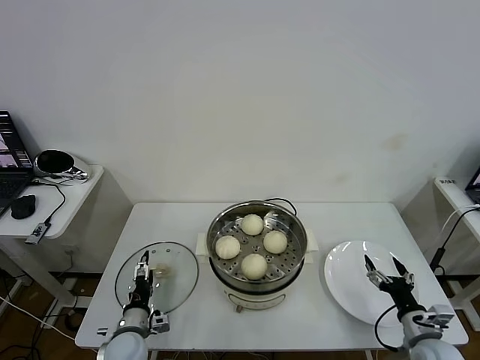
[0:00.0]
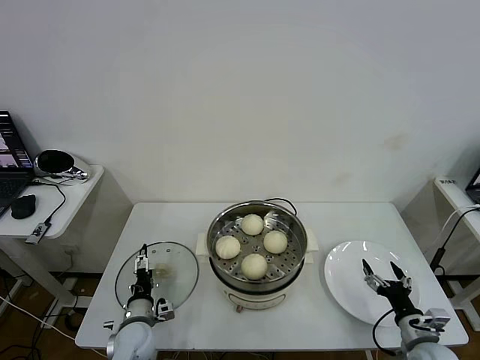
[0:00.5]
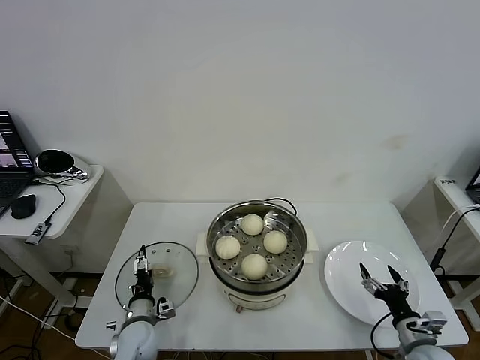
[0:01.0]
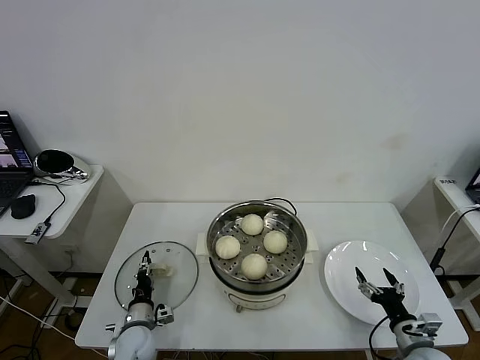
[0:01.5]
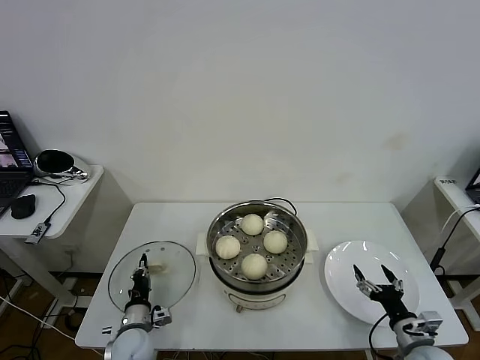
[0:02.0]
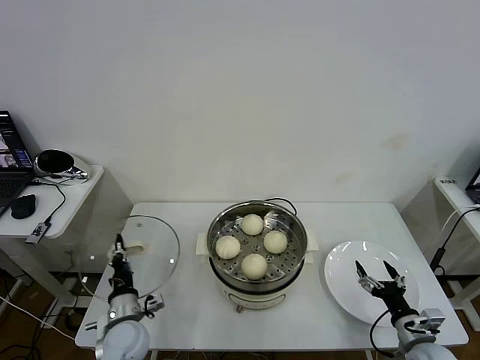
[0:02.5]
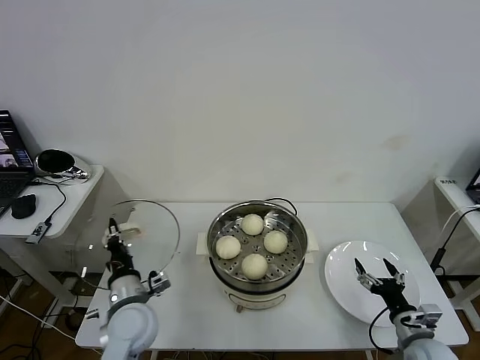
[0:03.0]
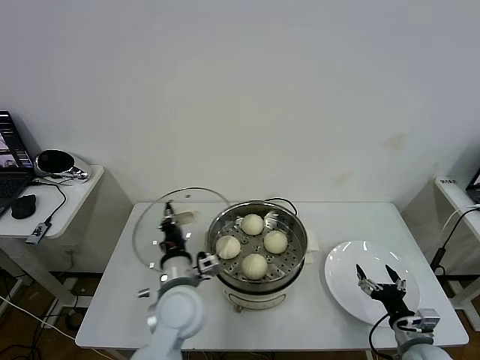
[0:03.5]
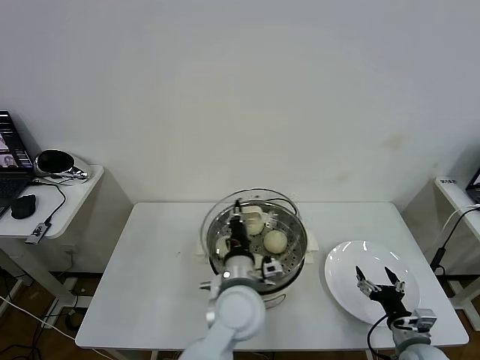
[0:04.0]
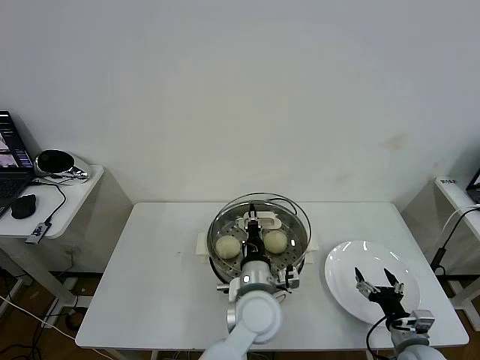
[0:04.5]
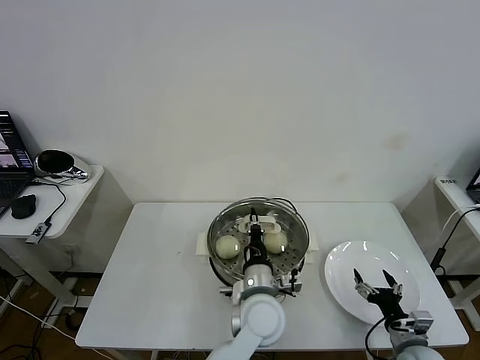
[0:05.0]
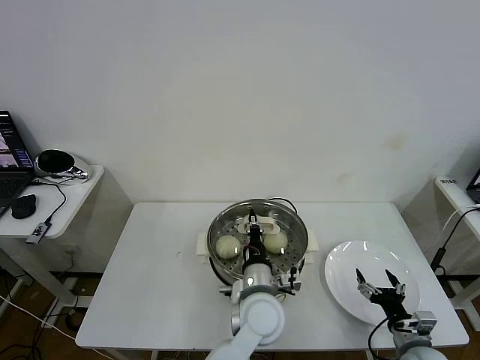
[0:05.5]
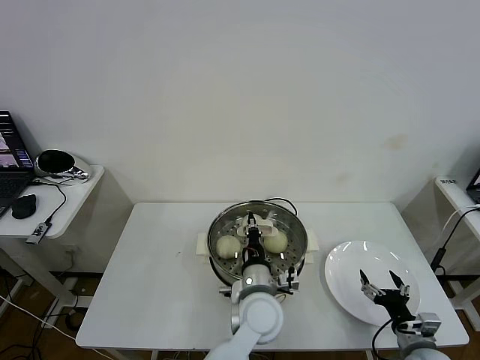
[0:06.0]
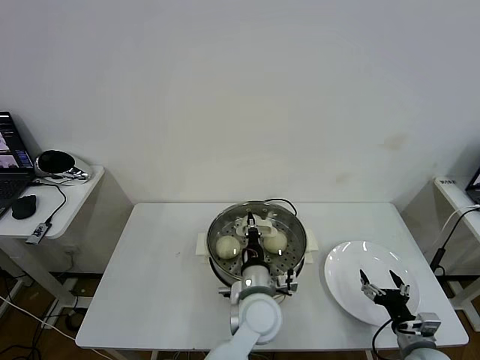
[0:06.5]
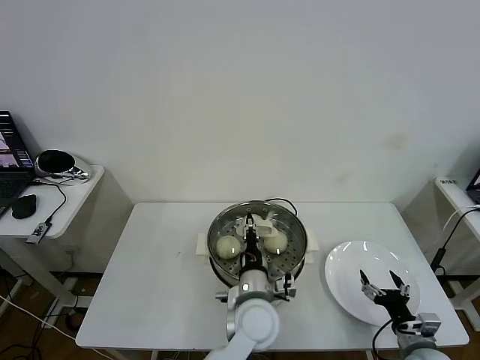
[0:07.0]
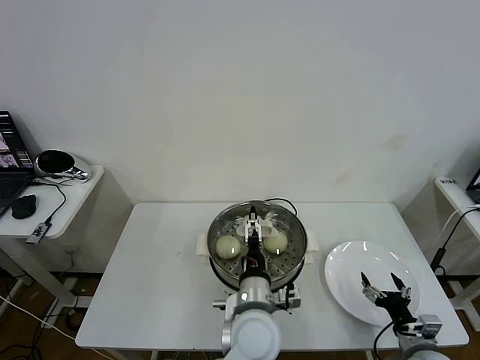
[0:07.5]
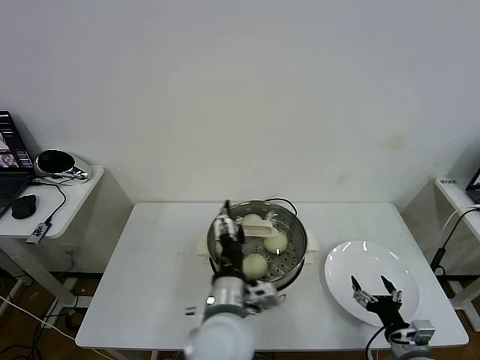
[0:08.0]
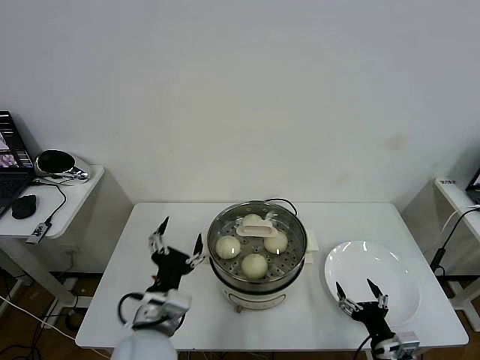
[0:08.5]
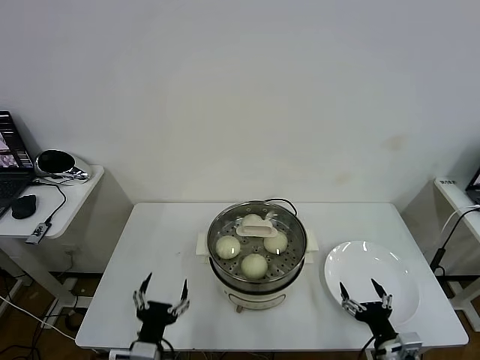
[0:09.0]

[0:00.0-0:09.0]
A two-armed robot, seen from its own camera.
Task of the whole recording: take steamed baozi put them in steamer then cover it.
Step, 0:02.5 to 0:07.0: Place the pot lid on the steamer with left gripper.
0:00.0 to 0:02.0: The left gripper closes its fingers.
0:02.0 to 0:04.5: The left gripper goes roughly 35 cm to the right and upward.
0:04.5 to 0:07.0: The grippers stay close to where they were, moving slightly.
0:07.0 to 0:09.0: The left gripper moves to the left and backward, some 25 cm, and opens up. The right gripper goes some 5 cm to the left.

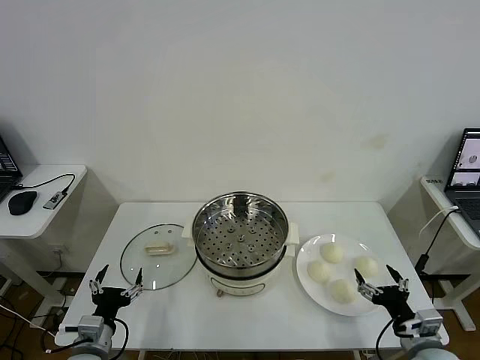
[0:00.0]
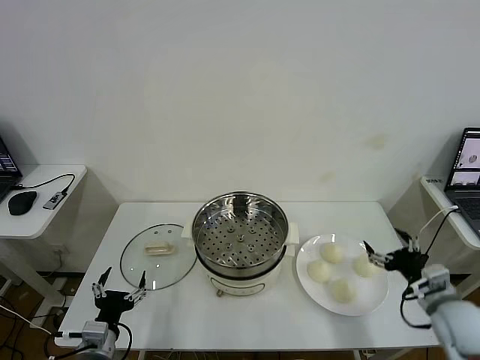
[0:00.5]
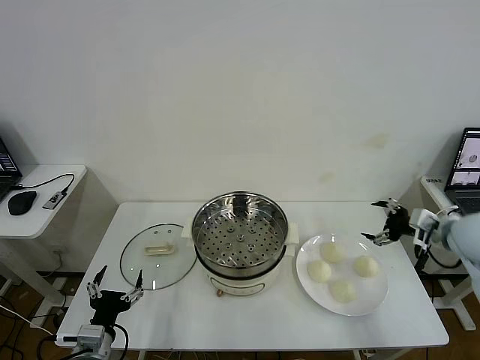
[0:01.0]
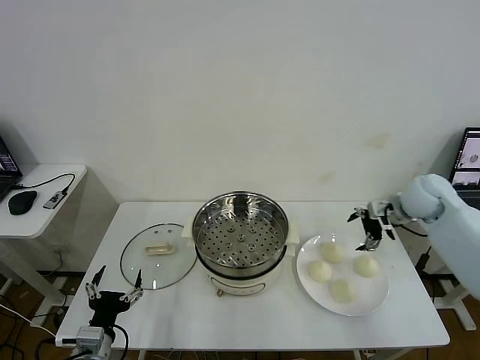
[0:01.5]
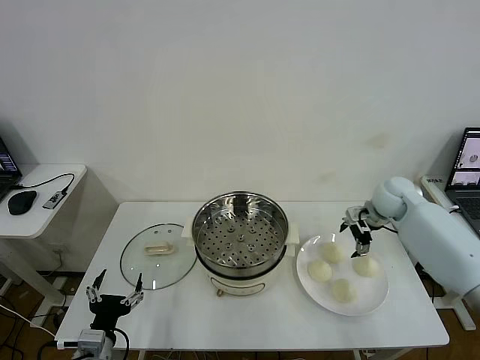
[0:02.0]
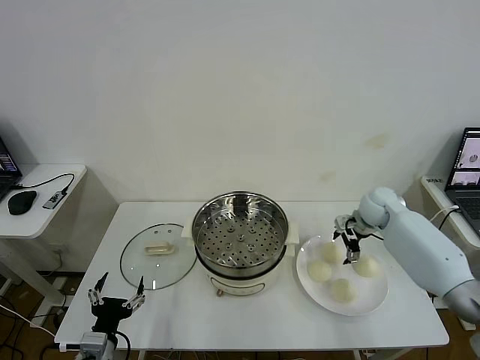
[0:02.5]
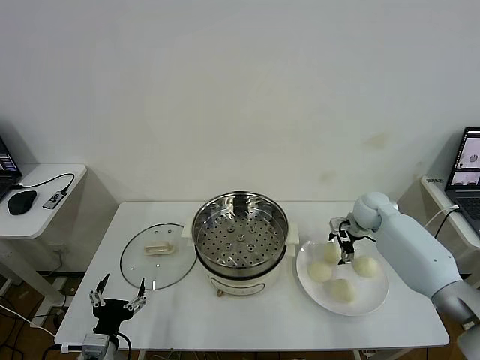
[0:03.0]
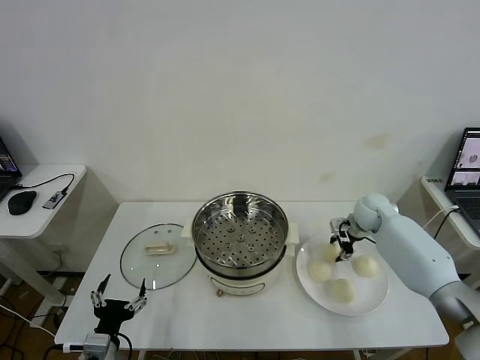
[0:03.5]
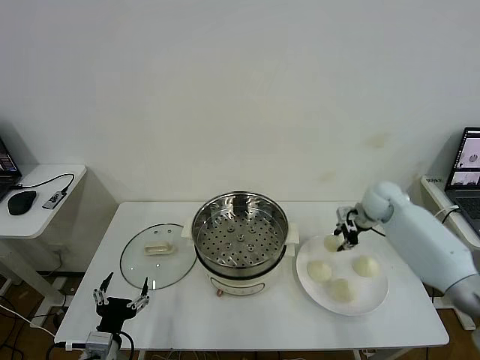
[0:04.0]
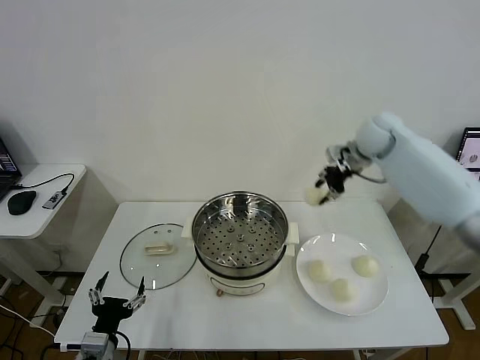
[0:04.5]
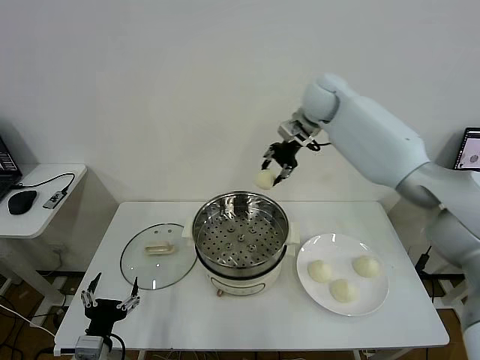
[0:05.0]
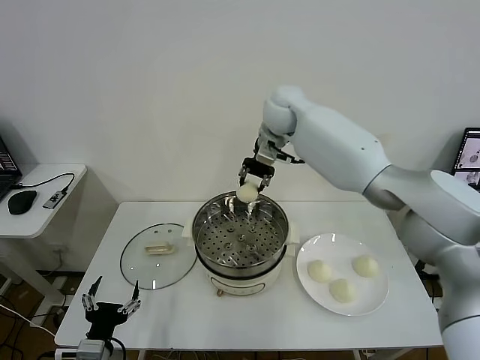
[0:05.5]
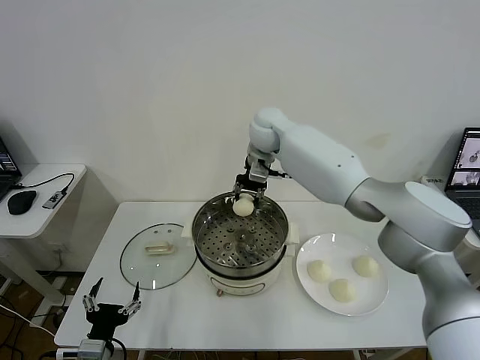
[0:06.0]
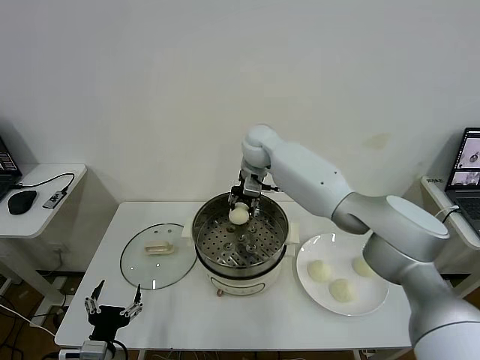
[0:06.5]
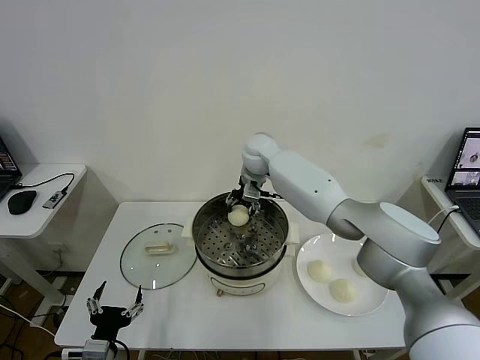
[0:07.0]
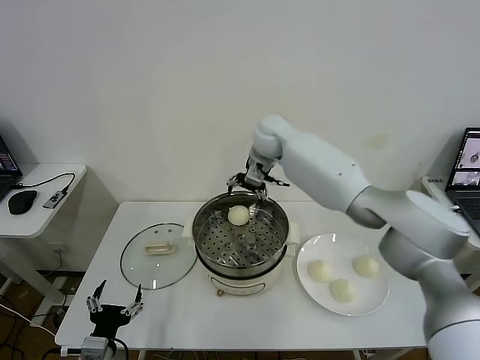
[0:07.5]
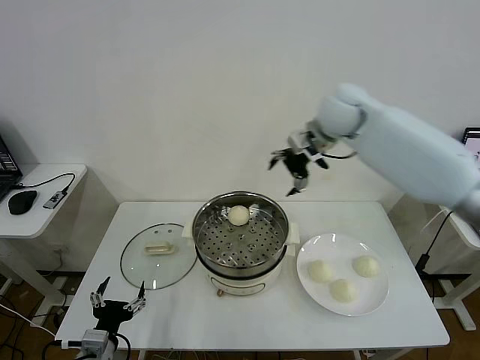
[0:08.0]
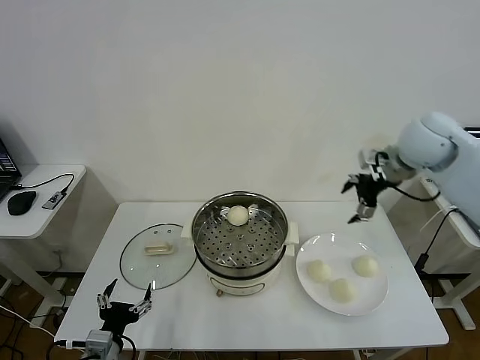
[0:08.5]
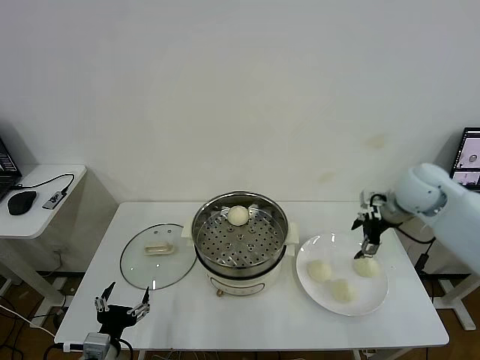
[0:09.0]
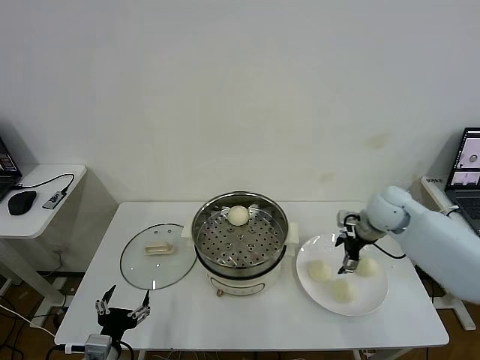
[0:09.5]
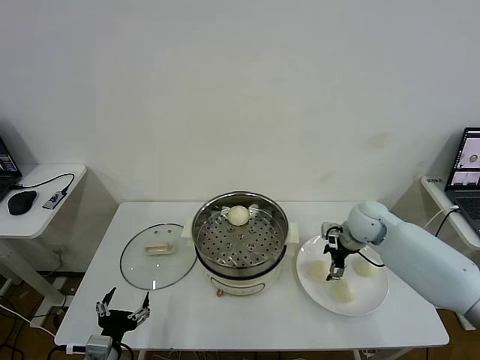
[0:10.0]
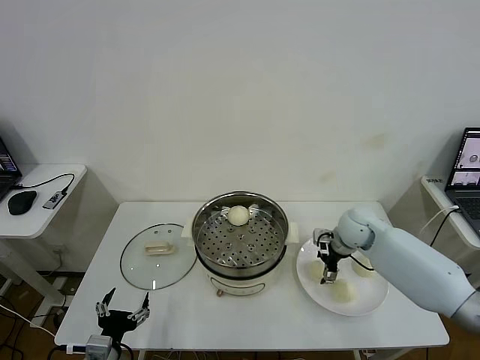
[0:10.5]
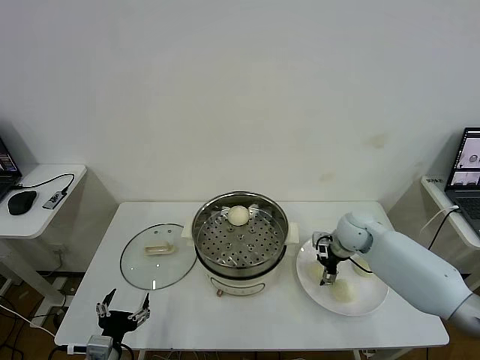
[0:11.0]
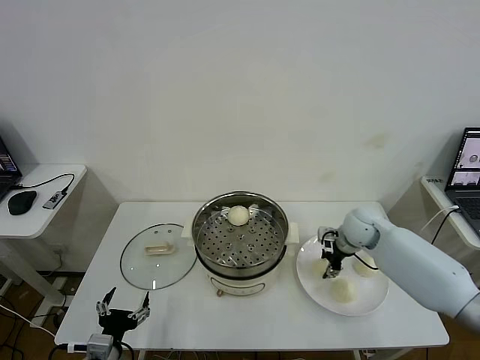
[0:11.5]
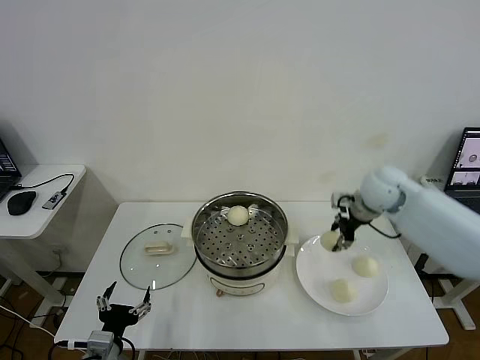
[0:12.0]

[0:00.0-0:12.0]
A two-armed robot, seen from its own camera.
Task of the whole recording: take steamed baozi put them in steamer then cover it.
Step, 0:00.0 to 0:03.5: Grasp the baozi in the plate with right gripper.
Step, 0:04.0 to 0:07.0: Place the baozi on the steamer with right gripper.
Step, 0:07.5 to 0:11.0: Grasp the baozi in the plate with right gripper.
0:02.0 to 0:04.0: The right gripper closes.
0:04.0 to 0:06.0: The right gripper travels to the left by some 30 cm.
0:06.0 to 0:08.0: The right gripper goes about 20 cm to the right and upward, and opens up.
0:08.0 to 0:10.0: The right gripper moves downward, about 25 cm.
0:10.0 to 0:12.0: The right gripper moves upward, roughly 15 cm, and closes up.

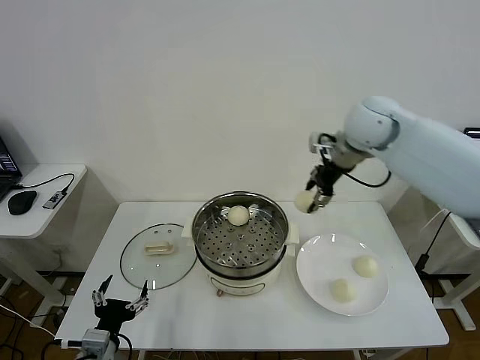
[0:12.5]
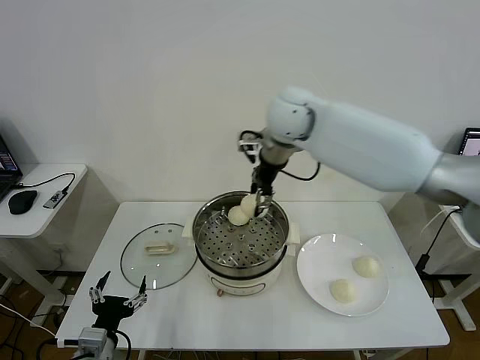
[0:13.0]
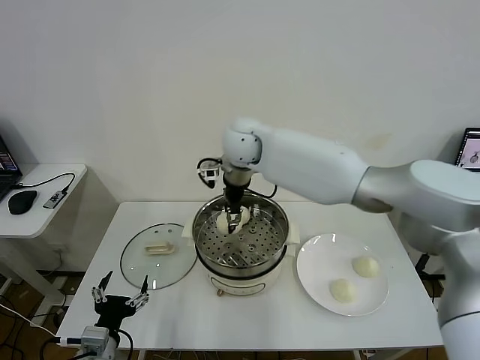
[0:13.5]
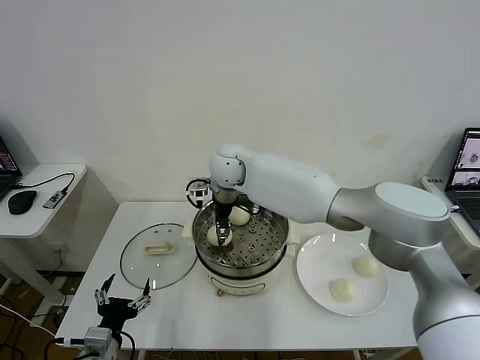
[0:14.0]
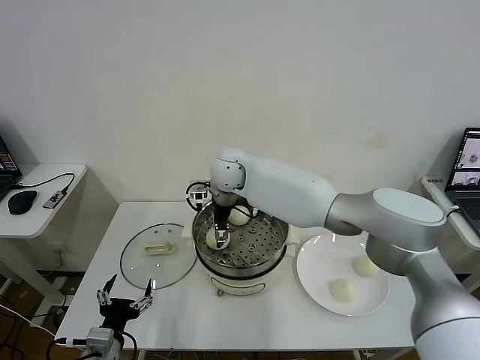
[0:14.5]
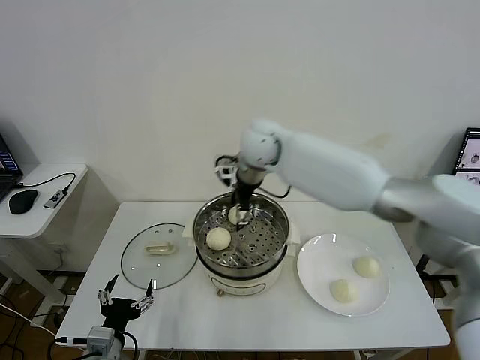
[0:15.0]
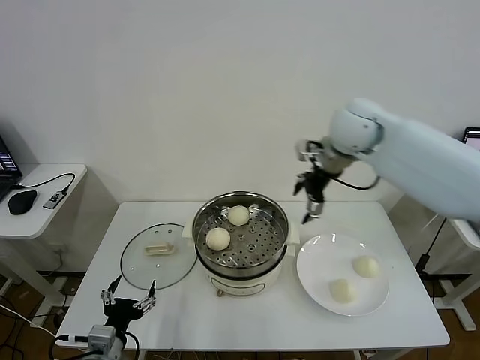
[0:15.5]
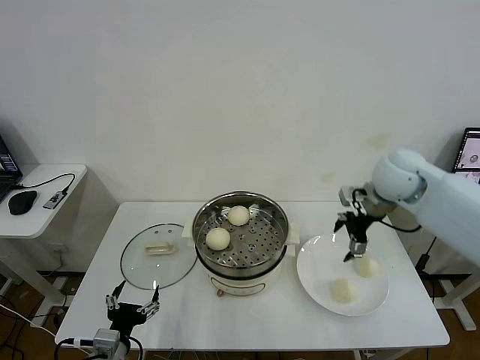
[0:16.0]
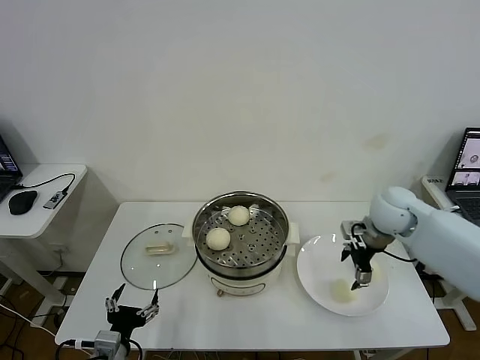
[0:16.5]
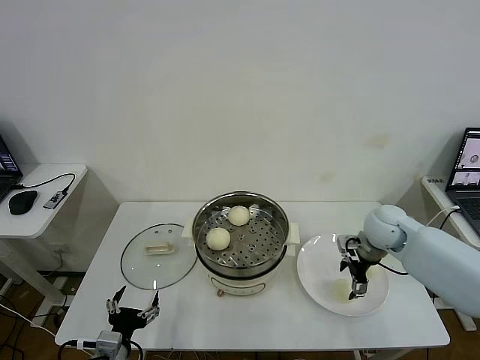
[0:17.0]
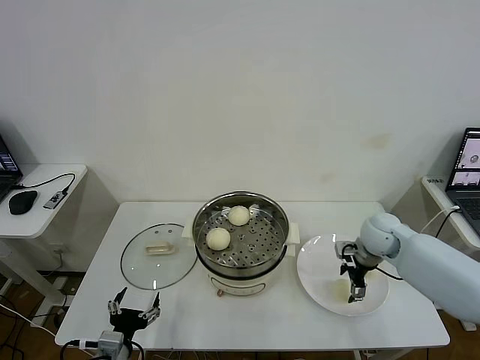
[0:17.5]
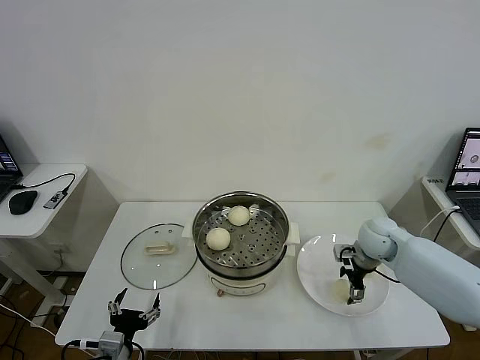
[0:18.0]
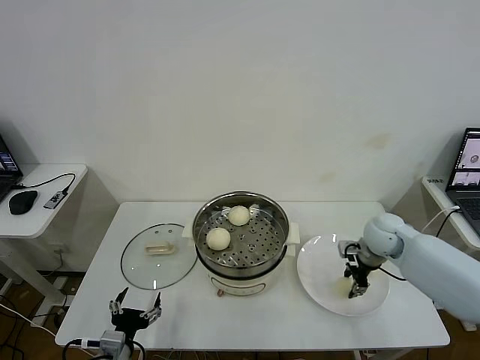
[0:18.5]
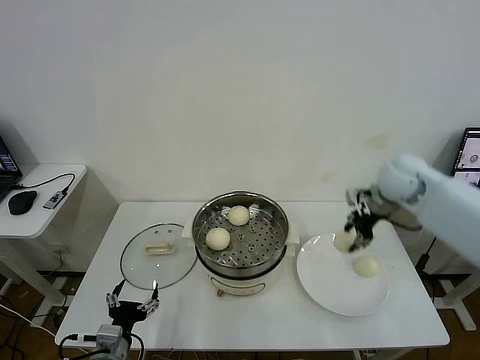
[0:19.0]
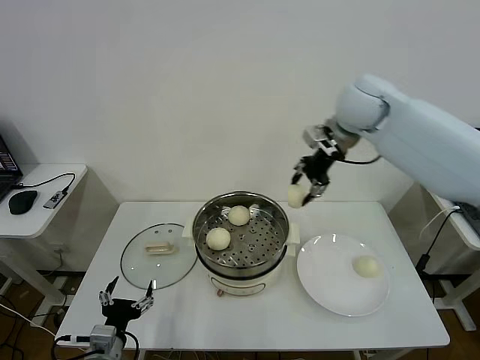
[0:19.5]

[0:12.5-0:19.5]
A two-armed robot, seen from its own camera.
Task of the whole recording: take steamed baozi put them in steamer then cover it.
Step, 0:12.5 to 0:14.5: Place the baozi on the steamer with right gripper.
Step, 0:15.0 to 0:18.5: Grasp the baozi in the plate with right gripper.
0:12.5 to 0:14.5: The right gripper is displaced to the left and downward by roughly 25 cm, and opens.
0:14.5 to 0:16.0: The right gripper travels to the right by about 35 cm.
0:16.0 to 0:17.5: The right gripper goes some 15 cm downward.
0:17.5 to 0:19.5: The right gripper shifts about 30 cm upward and to the left, and closes up.
